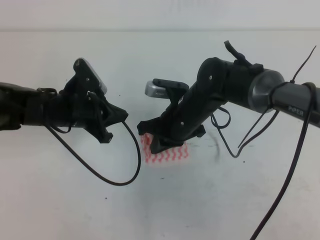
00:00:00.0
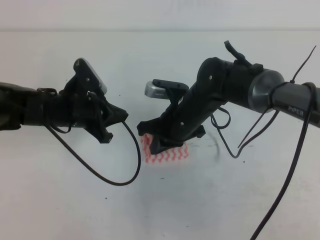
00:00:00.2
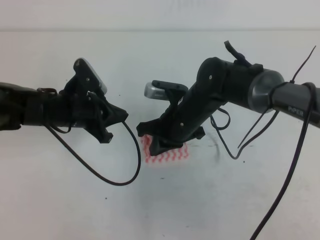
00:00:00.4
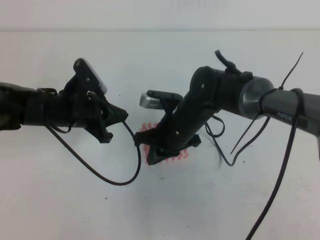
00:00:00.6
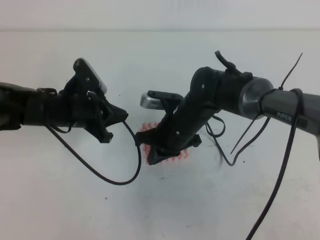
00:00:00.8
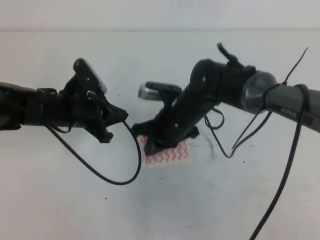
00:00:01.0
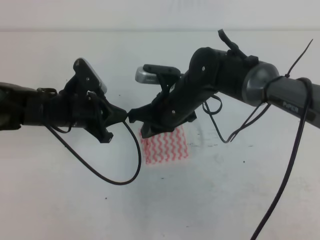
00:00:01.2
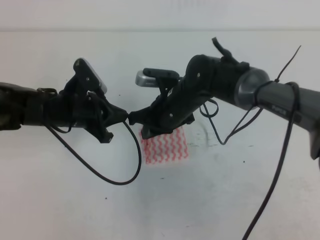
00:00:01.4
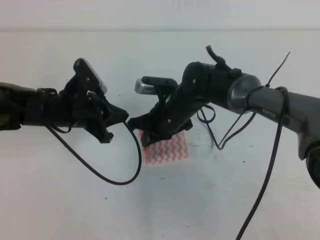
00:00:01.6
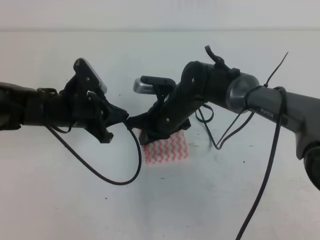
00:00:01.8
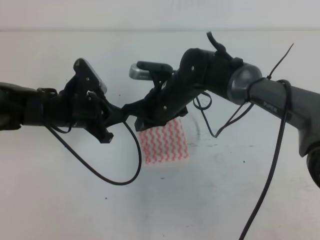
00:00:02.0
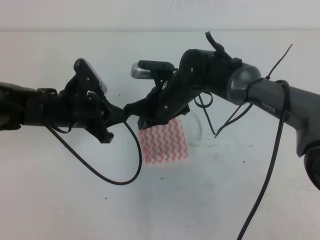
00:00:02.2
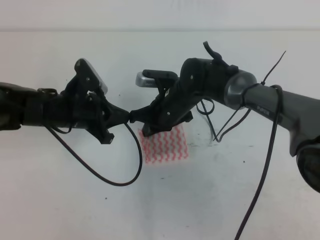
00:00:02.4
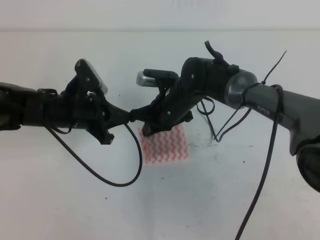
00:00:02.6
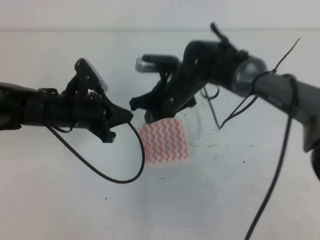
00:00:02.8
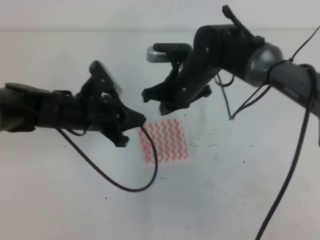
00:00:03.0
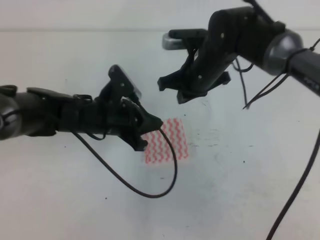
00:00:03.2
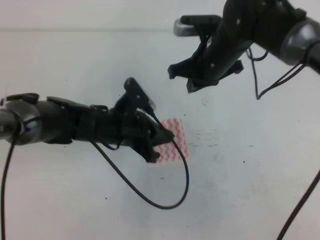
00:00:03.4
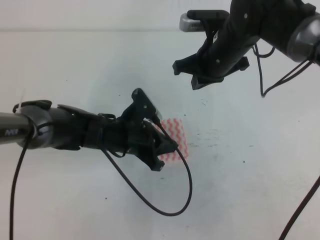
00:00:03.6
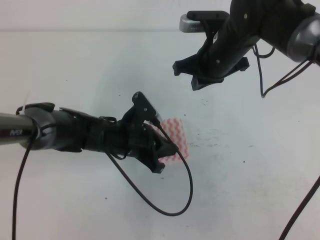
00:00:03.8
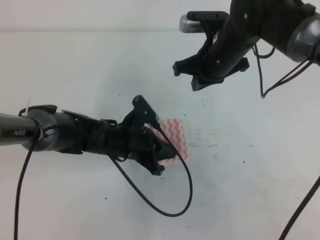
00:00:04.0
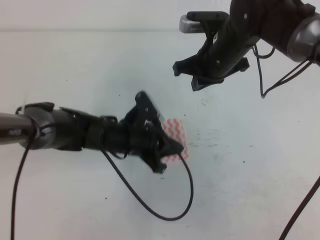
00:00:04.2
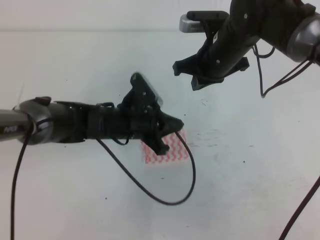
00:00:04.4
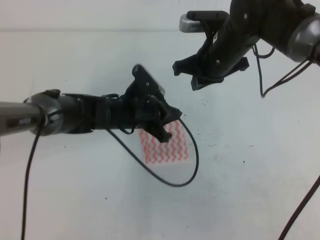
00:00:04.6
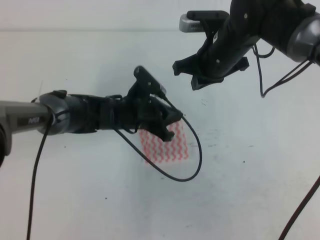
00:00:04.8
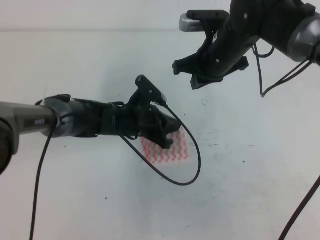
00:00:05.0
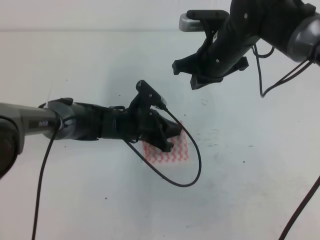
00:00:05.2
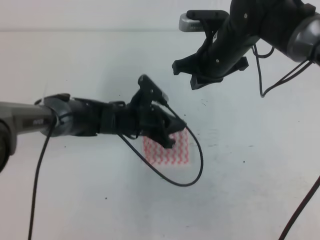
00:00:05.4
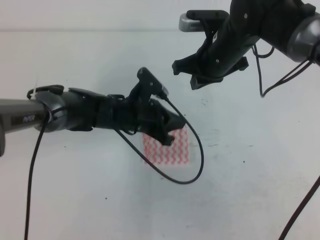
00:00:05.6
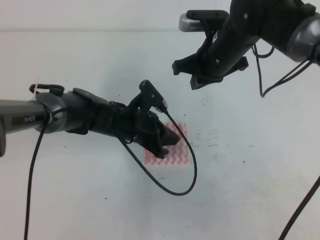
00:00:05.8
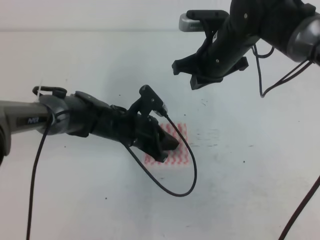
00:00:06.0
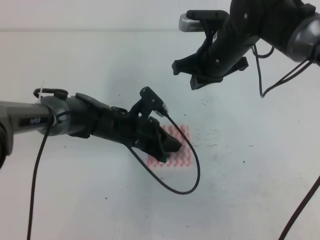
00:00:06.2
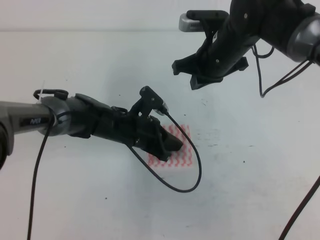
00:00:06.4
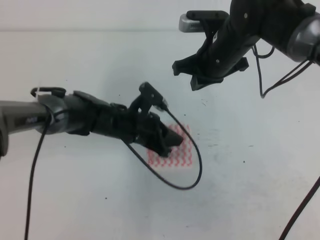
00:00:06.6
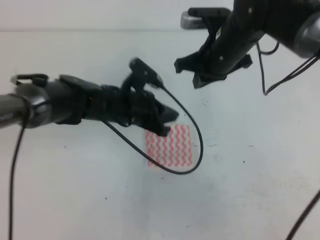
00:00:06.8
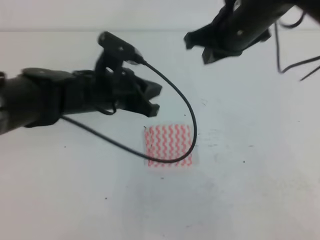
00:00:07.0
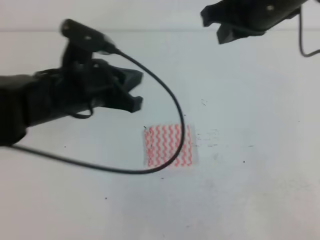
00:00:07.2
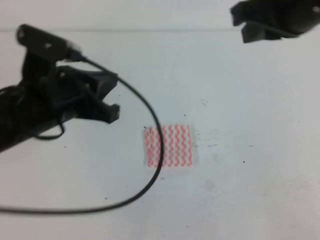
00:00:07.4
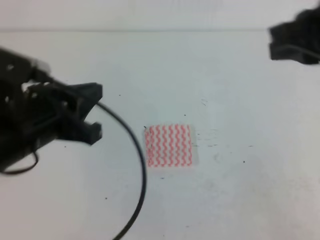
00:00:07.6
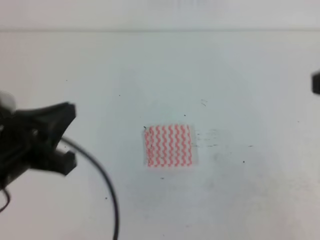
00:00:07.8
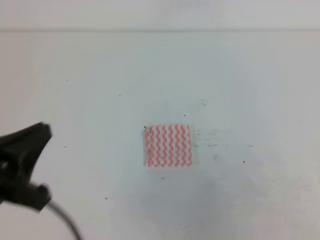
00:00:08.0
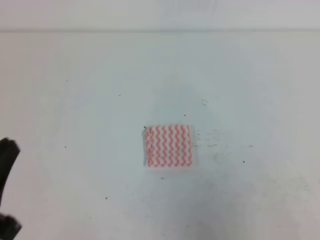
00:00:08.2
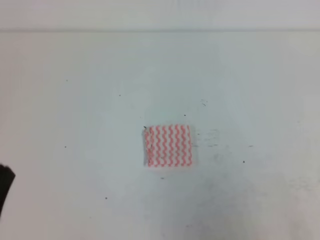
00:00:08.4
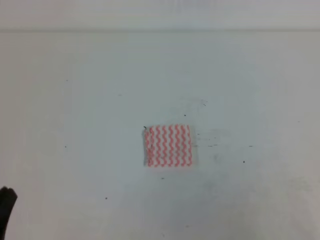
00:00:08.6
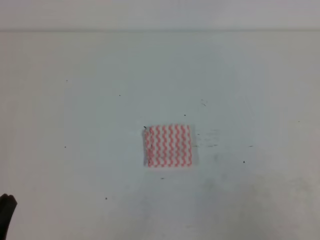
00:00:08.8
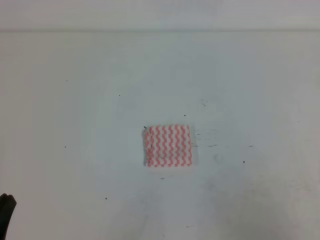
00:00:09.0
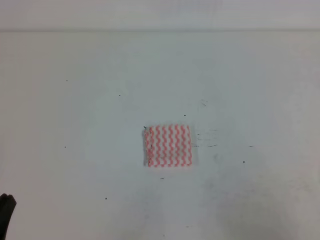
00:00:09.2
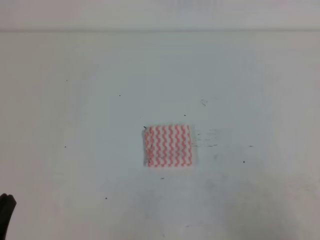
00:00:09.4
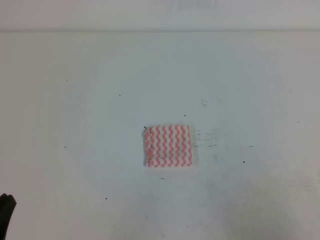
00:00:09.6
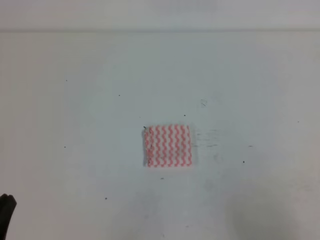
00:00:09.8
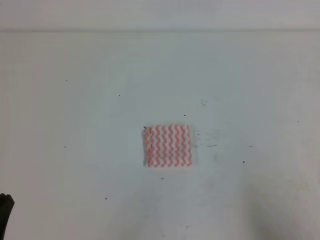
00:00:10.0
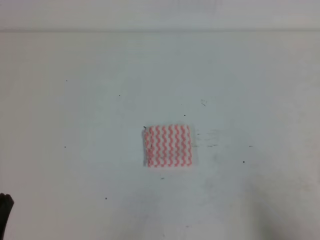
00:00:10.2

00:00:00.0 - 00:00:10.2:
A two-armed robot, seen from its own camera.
00:00:00.0 - 00:00:01.4: The grippers stay close to where they were, moving slightly.
00:00:01.4 - 00:00:03.0: The right gripper changes place by roughly 5 cm.
00:00:03.0 - 00:00:04.4: The right gripper moves to the right and upward, roughly 10 cm, while the left gripper is displaced to the right by roughly 5 cm.
00:00:04.4 - 00:00:05.8: The grippers make only small movements.
00:00:05.8 - 00:00:07.2: The left gripper travels upward, backward and to the left by about 15 cm. The right gripper travels upward and backward by roughly 15 cm.
00:00:07.2 - 00:00:08.8: The left gripper shifts some 25 cm backward and to the left. The right gripper moves backward, to the right and downward, approximately 35 cm.
00:00:08.8 - 00:00:10.2: The right gripper travels downward by approximately 5 cm.
